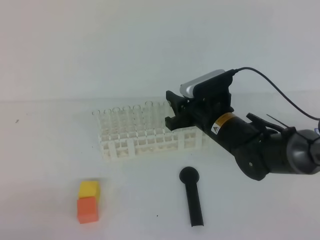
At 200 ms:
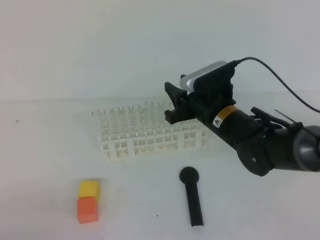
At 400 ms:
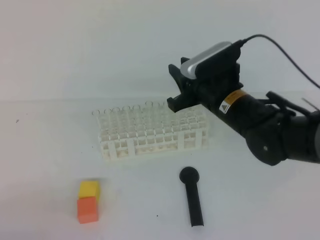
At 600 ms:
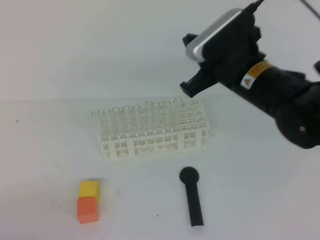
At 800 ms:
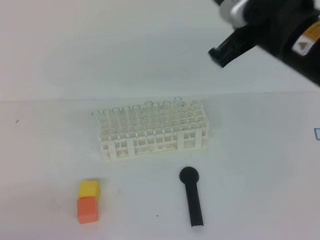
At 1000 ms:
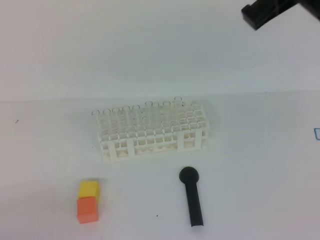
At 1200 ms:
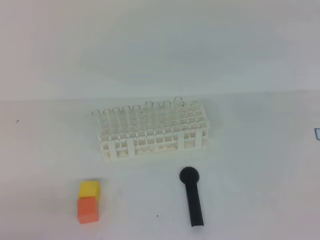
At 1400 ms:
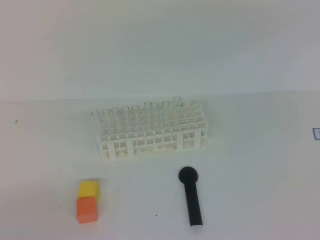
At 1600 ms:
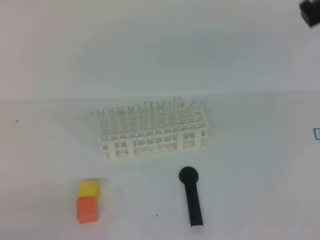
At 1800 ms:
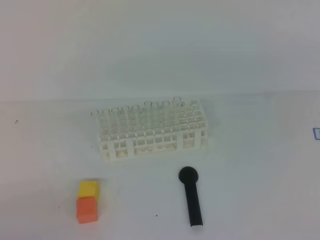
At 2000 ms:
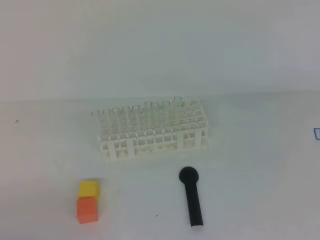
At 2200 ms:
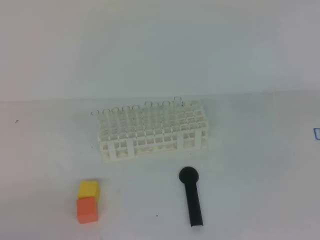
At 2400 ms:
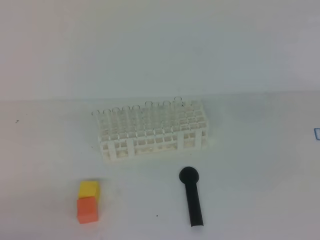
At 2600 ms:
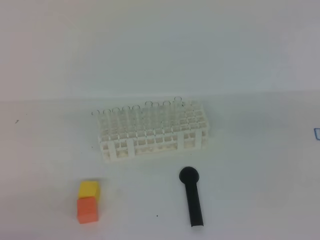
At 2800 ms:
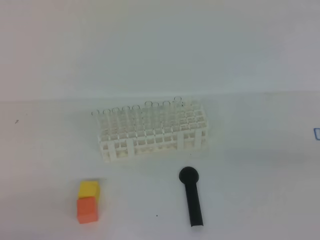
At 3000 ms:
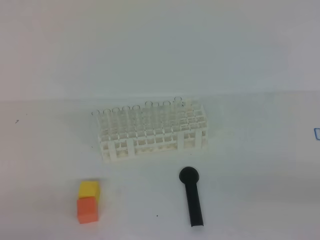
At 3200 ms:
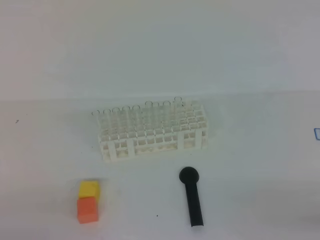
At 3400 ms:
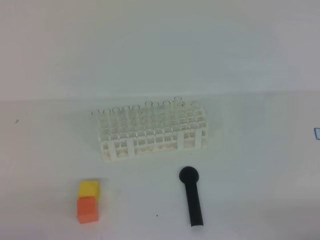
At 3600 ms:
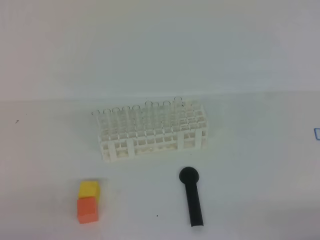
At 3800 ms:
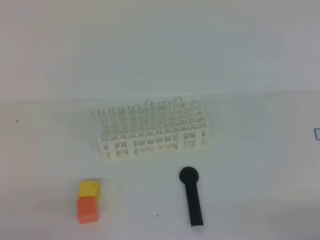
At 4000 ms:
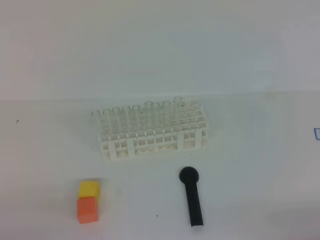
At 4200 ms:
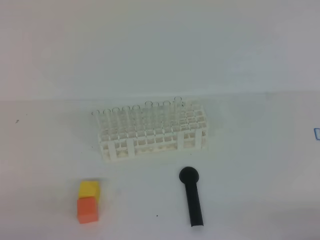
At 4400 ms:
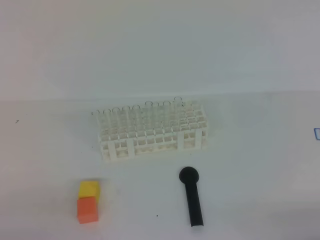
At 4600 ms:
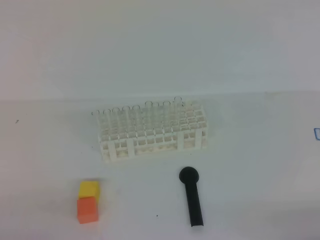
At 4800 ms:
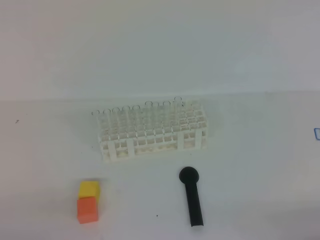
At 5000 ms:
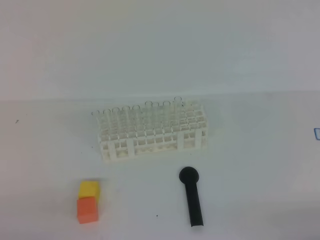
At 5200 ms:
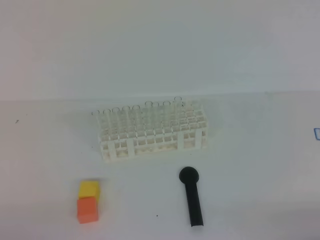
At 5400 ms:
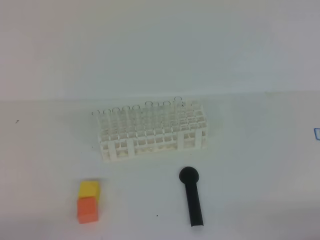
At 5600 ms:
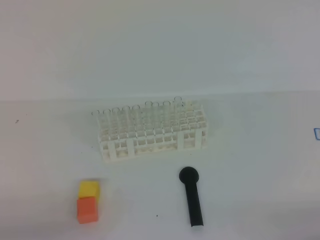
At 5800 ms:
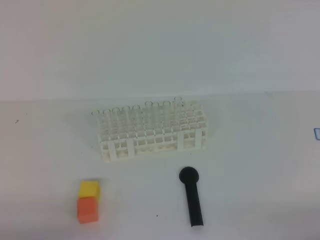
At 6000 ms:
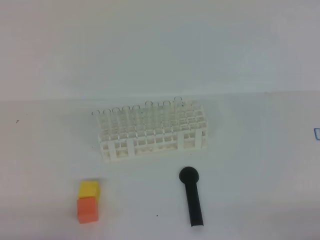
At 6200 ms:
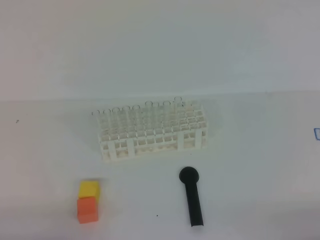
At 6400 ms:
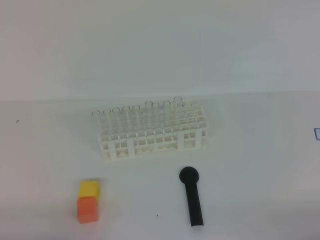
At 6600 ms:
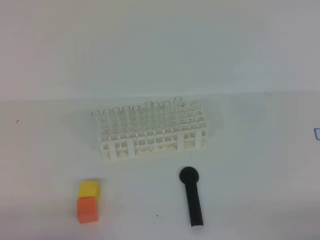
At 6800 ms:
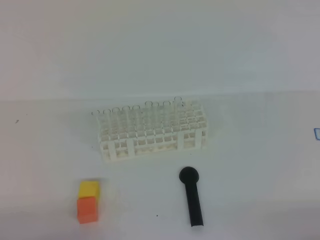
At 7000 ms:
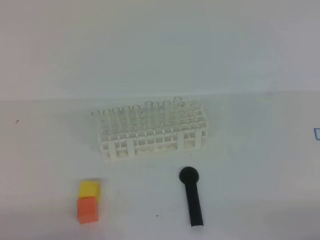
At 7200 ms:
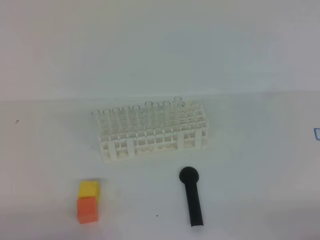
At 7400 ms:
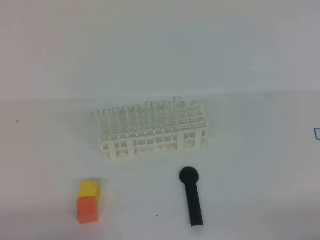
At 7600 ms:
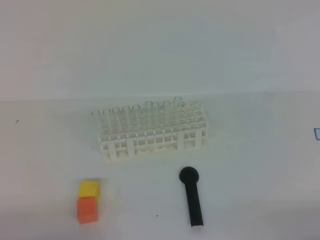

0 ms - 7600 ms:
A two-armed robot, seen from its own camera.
0 ms - 1600 ms: The right gripper moves upward, to the right and backward, roughly 30 cm, and closes its fingers.
1600 ms - 3000 ms: The right gripper moves downward, backward and to the right, about 25 cm.
